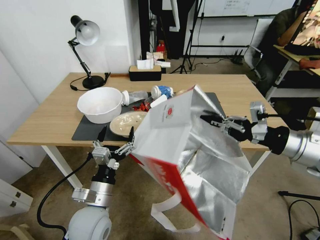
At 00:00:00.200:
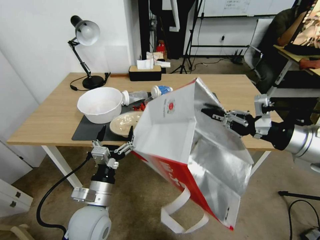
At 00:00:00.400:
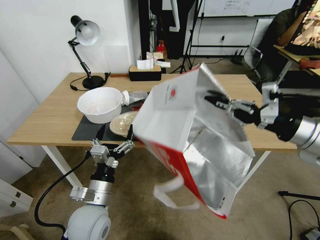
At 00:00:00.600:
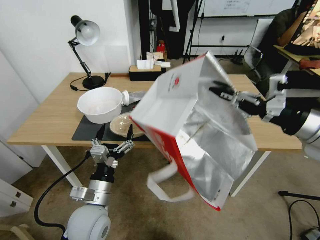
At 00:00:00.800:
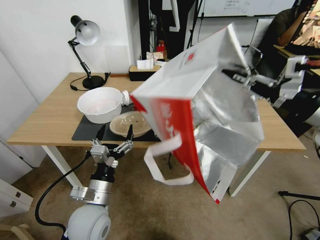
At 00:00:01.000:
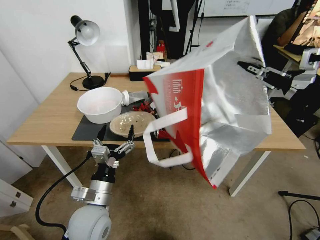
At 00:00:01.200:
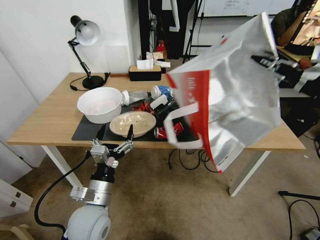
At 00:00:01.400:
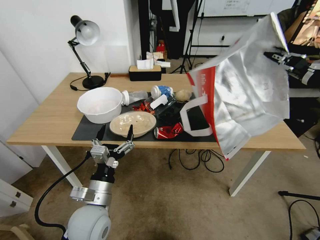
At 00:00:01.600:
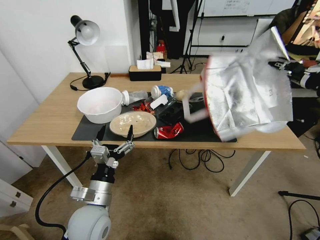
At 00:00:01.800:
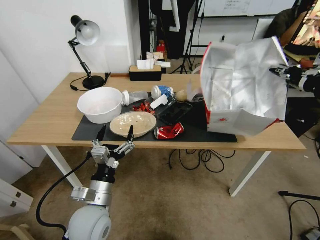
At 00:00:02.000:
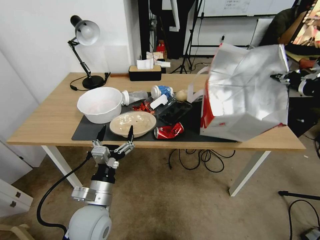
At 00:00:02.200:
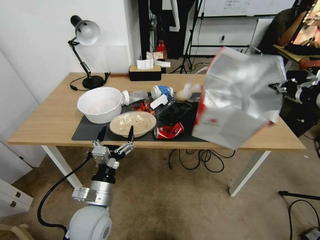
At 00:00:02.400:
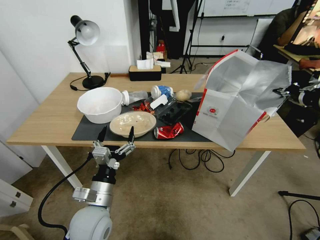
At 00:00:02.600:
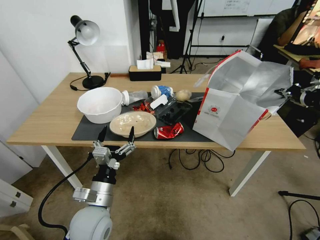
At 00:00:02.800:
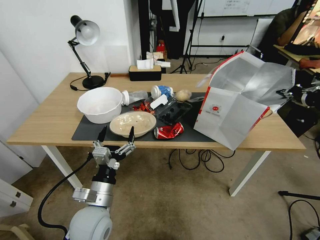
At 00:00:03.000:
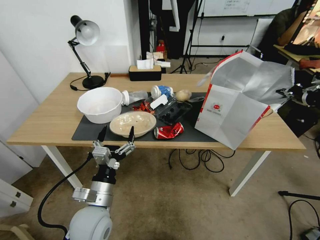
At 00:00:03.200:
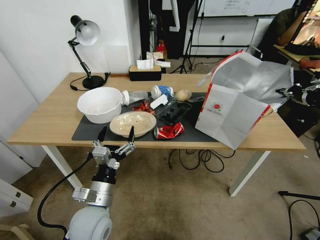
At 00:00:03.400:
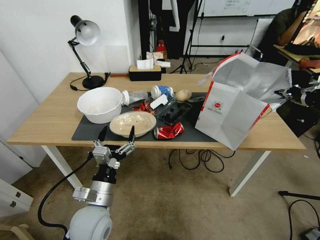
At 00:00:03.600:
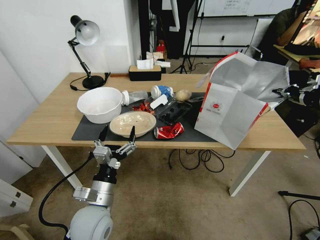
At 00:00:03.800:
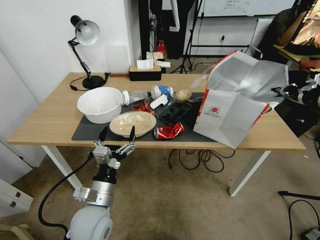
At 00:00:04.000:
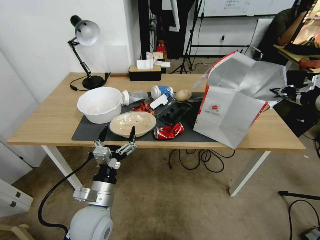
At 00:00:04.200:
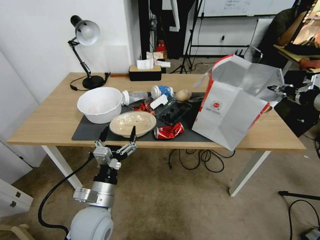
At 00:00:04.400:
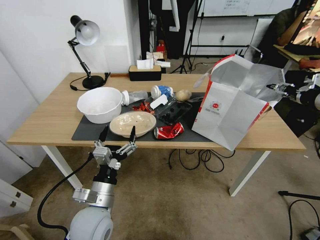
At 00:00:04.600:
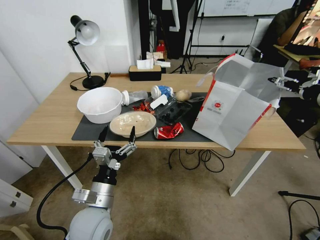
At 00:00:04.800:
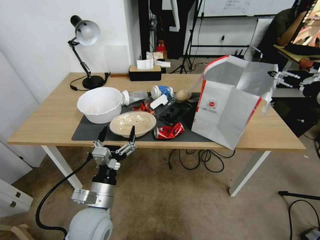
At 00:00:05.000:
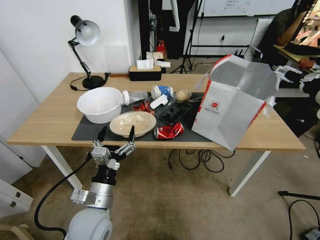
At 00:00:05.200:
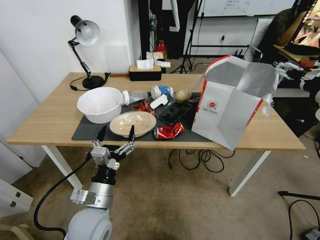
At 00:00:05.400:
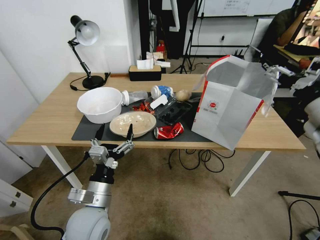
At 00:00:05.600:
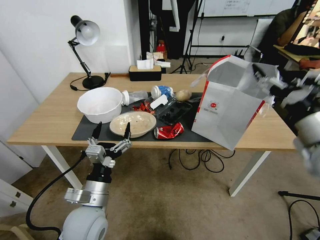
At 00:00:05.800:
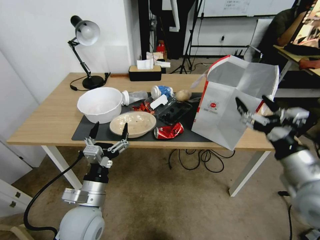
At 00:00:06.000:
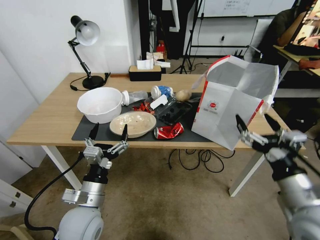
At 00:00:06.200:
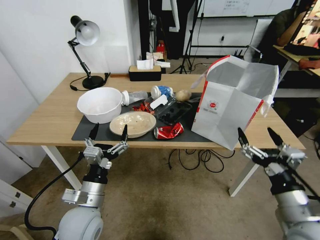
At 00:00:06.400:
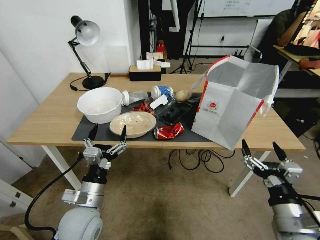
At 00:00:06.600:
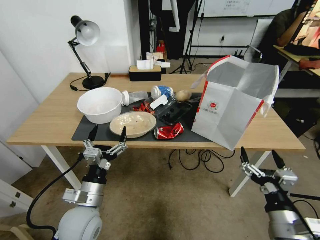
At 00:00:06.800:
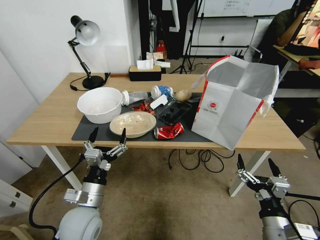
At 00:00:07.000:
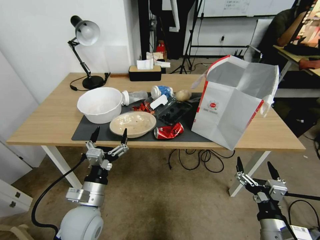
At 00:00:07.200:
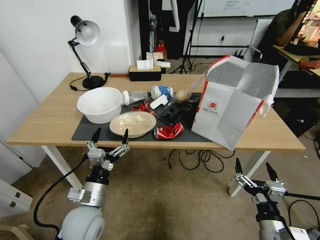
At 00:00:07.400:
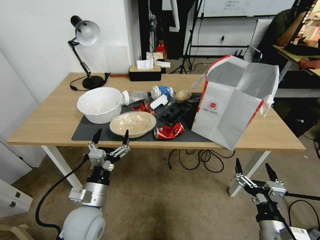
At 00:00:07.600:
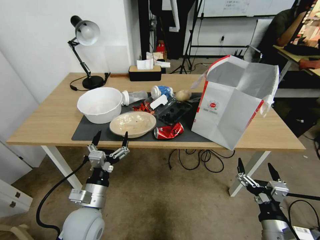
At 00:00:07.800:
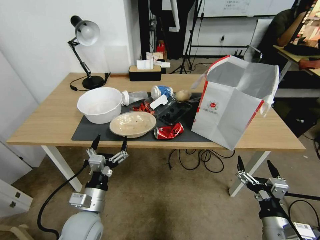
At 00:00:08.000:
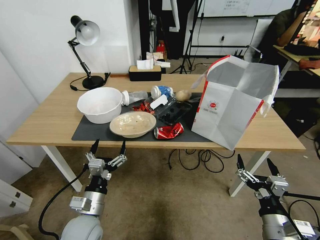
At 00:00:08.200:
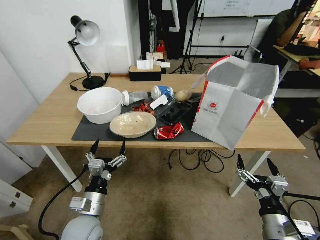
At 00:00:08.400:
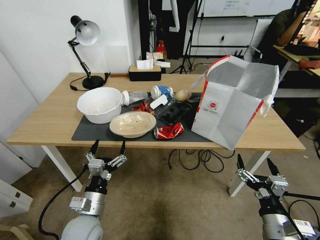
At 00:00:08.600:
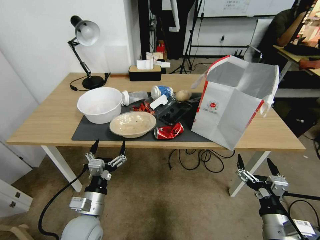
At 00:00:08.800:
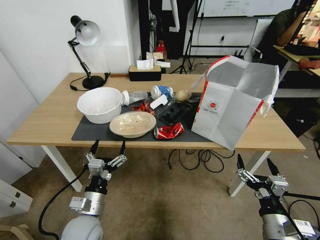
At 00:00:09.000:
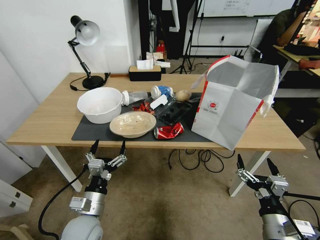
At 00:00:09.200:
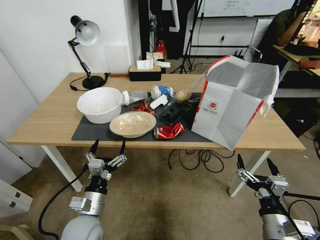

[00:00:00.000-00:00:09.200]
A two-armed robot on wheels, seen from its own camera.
Task of the whole recording: Pick up the food delivery bag from the floor and place it on the table.
00:00:00.000 to 00:00:01.600: The right gripper is displaced upward by some 10 cm.
00:00:01.600 to 00:00:03.000: The right gripper changes place by some 5 cm.
00:00:03.000 to 00:00:04.600: The right gripper opens.
00:00:04.600 to 00:00:06.200: The right gripper moves backward, downward and to the left, about 35 cm.
00:00:06.200 to 00:00:07.600: The right gripper heads downward, covering approximately 10 cm.
00:00:07.600 to 00:00:09.200: The grippers stay close to where they were, moving slightly.
